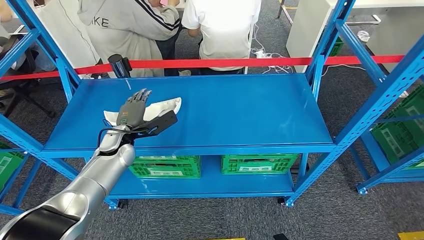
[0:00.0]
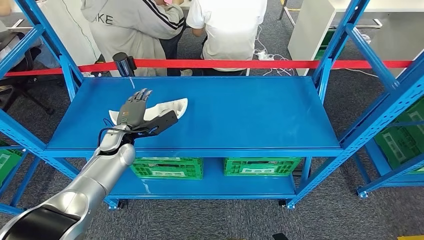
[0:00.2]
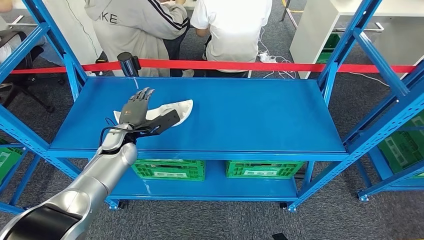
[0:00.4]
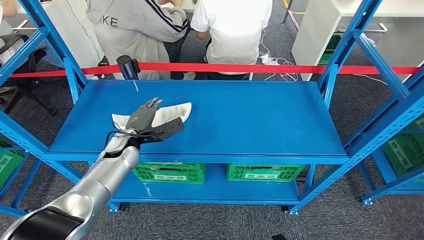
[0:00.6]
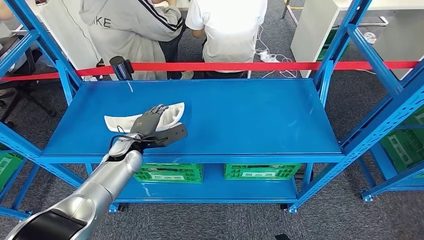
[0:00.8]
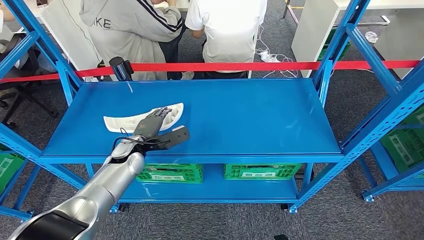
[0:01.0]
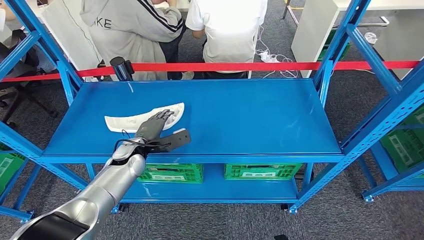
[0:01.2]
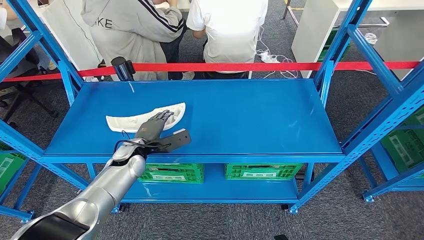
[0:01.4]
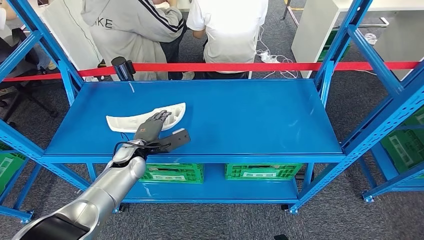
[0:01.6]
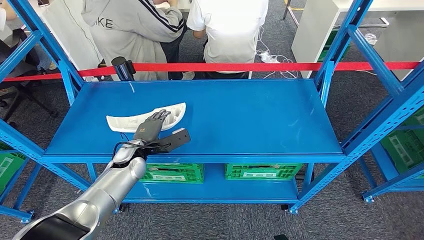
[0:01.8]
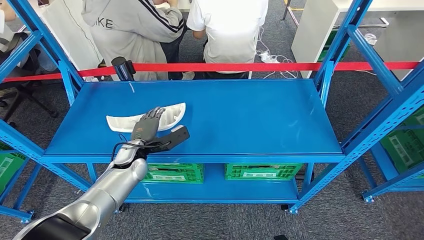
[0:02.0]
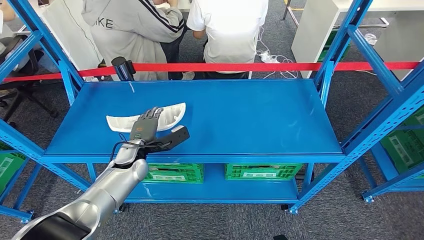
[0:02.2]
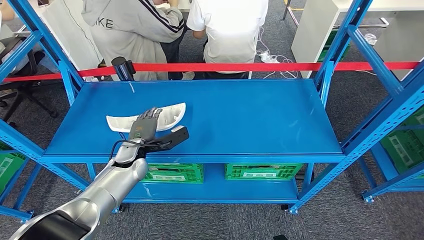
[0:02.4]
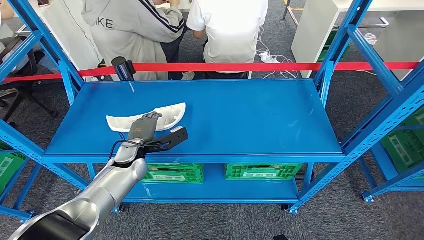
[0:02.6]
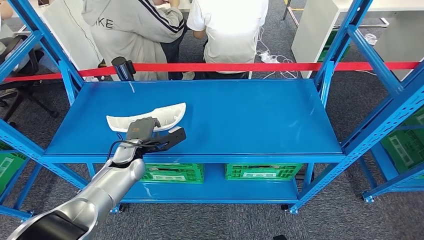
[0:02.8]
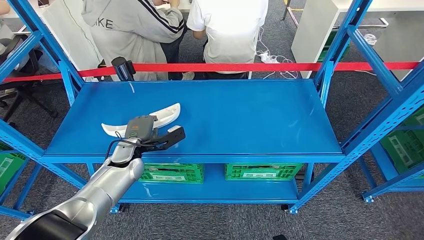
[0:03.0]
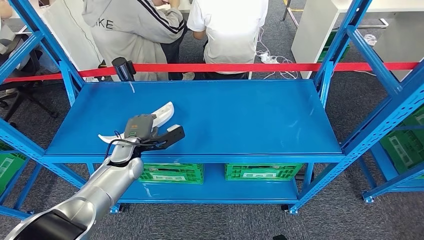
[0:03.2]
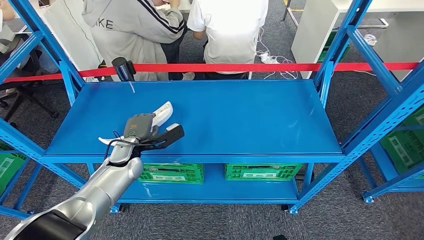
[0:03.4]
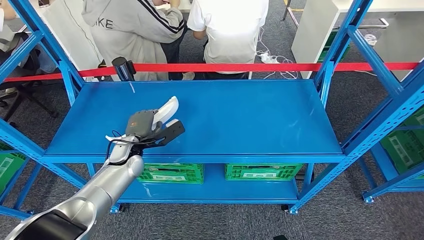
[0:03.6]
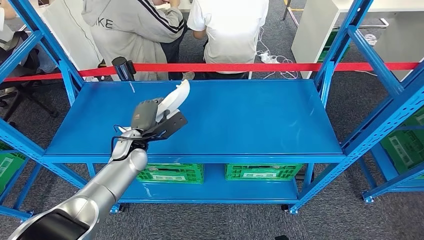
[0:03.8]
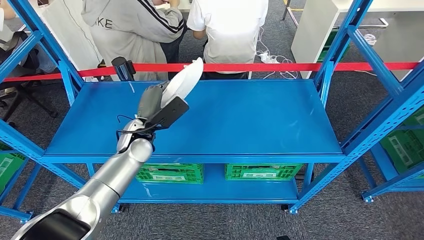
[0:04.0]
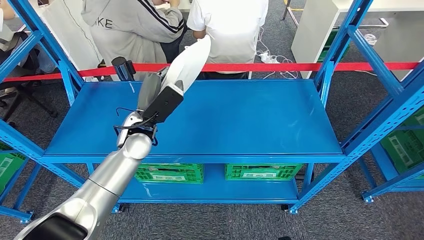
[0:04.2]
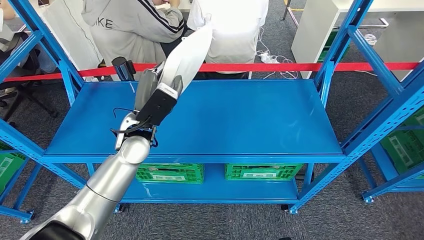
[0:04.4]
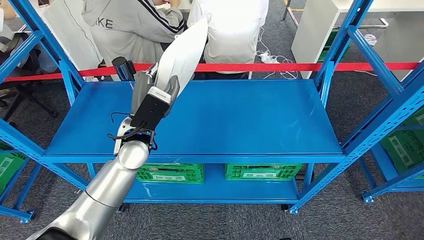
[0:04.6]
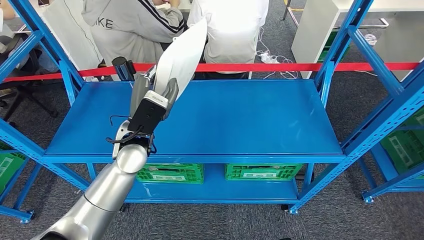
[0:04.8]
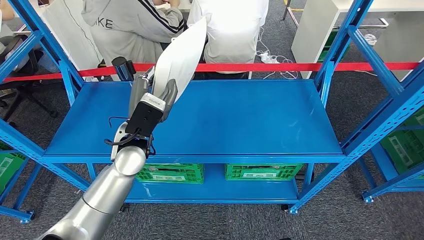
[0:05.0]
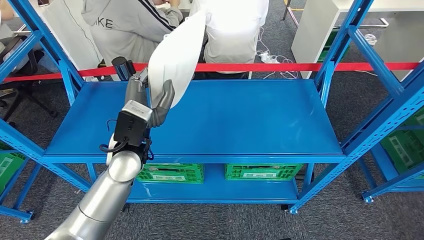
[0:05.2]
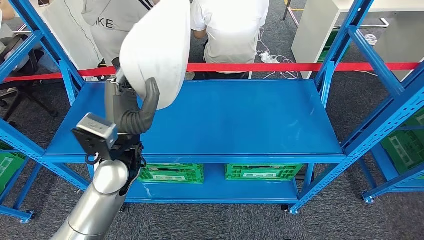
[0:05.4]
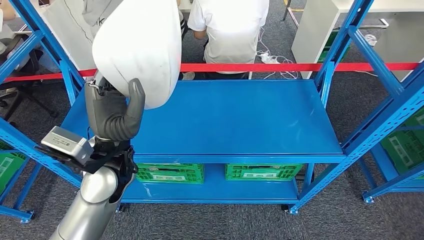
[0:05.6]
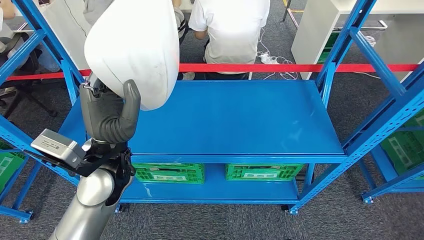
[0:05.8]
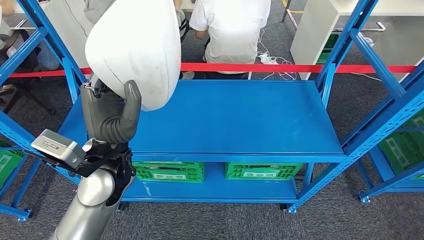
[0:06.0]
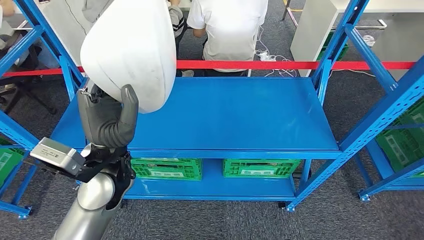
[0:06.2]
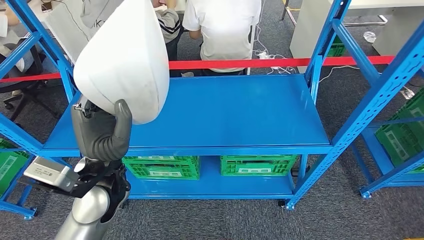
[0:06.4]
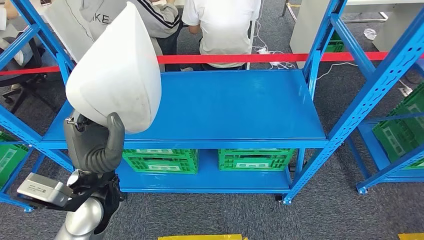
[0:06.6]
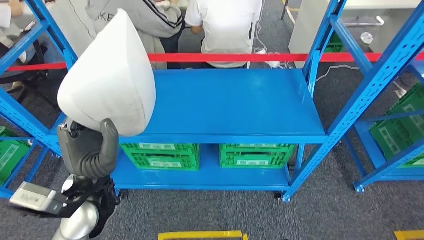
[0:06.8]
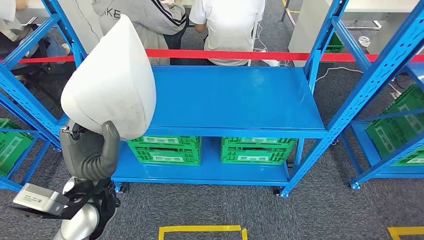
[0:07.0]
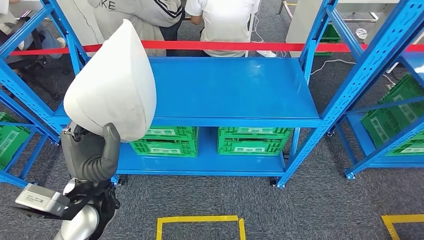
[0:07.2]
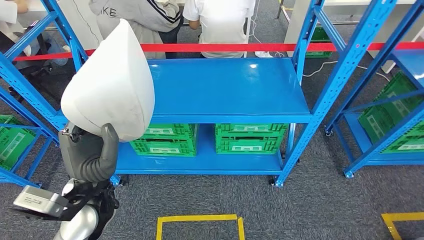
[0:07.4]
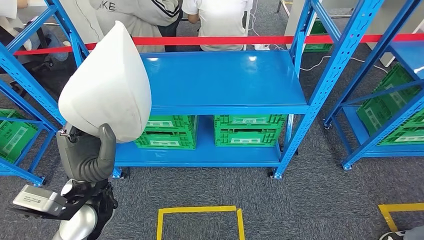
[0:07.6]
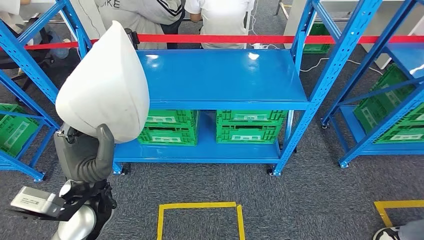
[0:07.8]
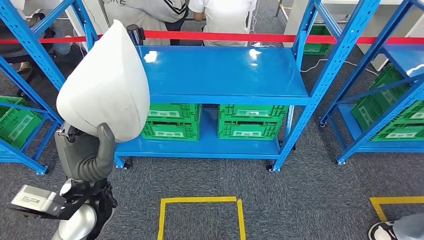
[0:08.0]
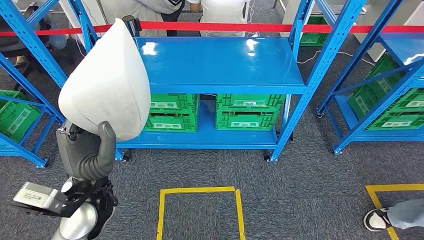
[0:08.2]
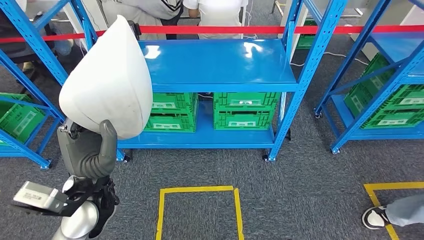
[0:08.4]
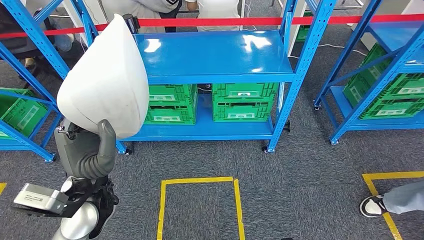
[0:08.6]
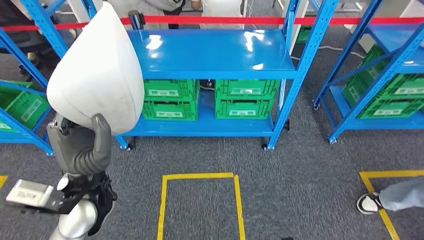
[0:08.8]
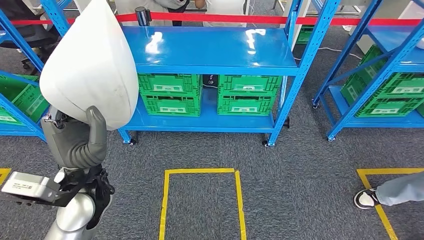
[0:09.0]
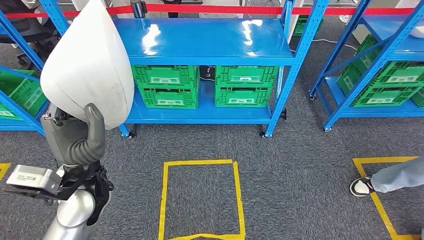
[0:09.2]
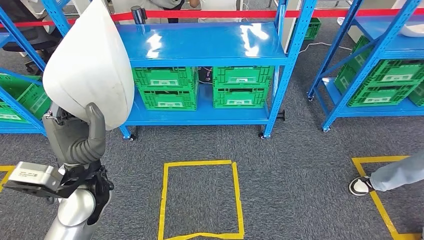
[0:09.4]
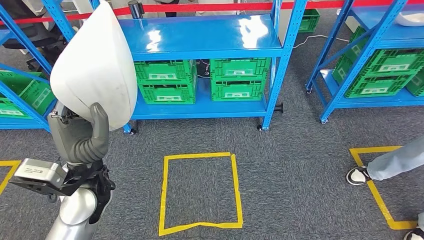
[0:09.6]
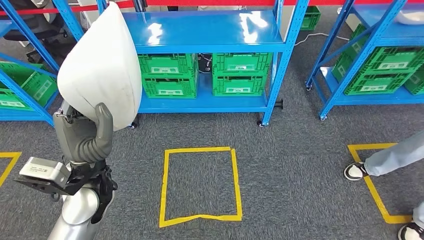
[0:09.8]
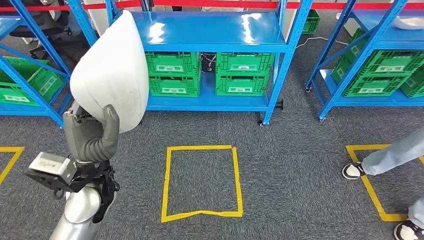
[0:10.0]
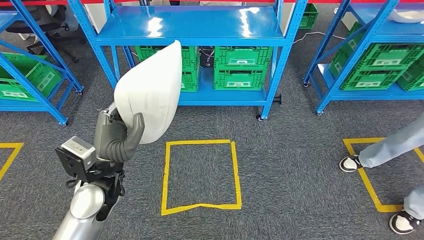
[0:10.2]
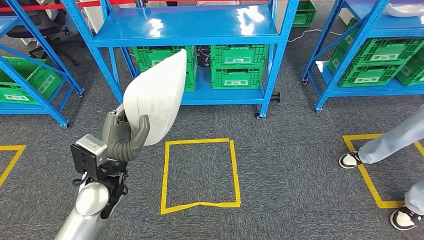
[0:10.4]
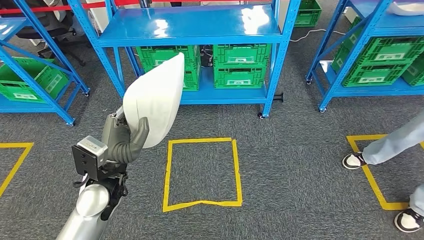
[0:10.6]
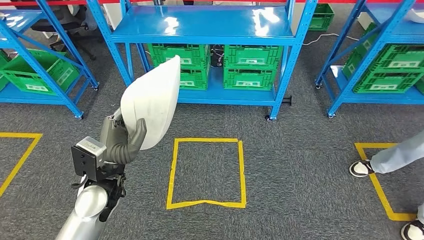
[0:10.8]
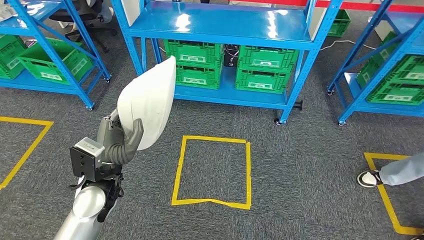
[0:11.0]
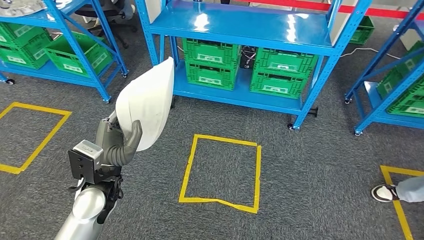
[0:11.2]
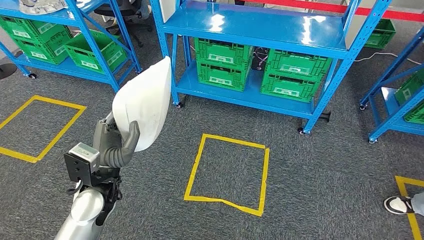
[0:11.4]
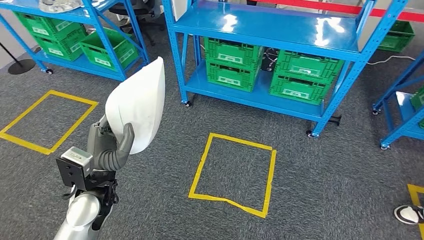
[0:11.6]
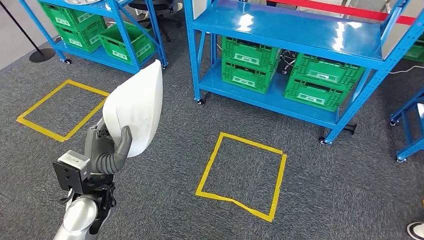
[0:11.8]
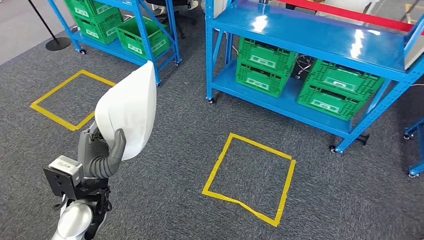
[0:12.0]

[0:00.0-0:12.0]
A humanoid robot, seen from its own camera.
Step, 0:00.0 to 0:06.4: Pick up the large material from the shelf.
0:01.6 to 0:03.0: The hands make only small movements.
0:03.0 to 0:04.4: The left hand is displaced upward and to the right by about 15 cm.

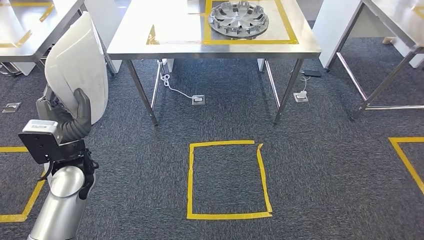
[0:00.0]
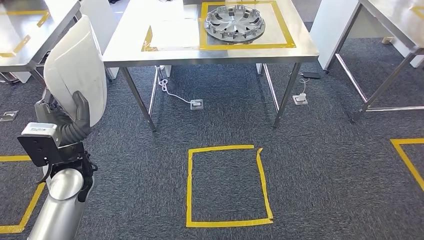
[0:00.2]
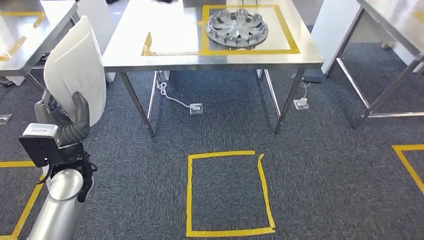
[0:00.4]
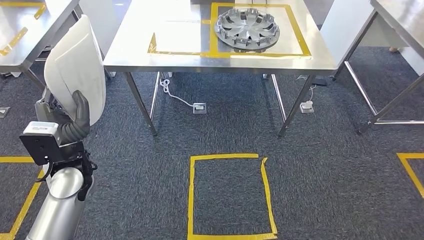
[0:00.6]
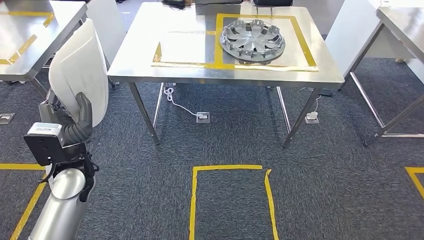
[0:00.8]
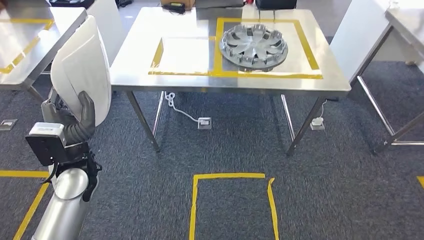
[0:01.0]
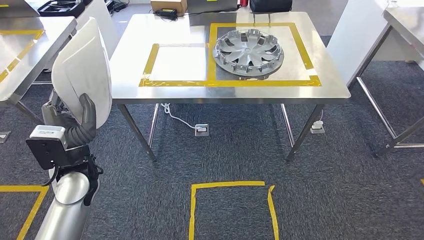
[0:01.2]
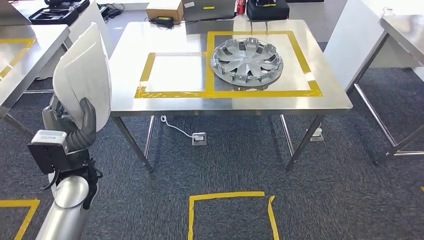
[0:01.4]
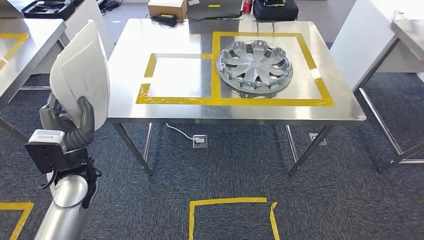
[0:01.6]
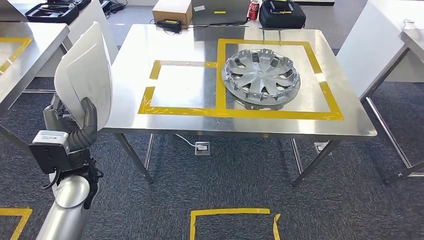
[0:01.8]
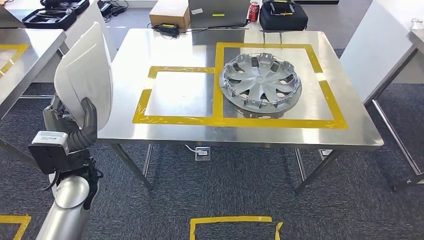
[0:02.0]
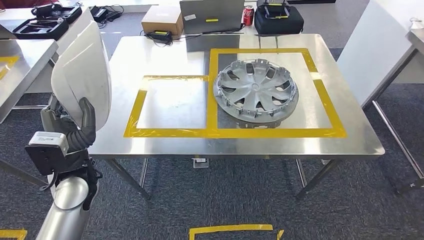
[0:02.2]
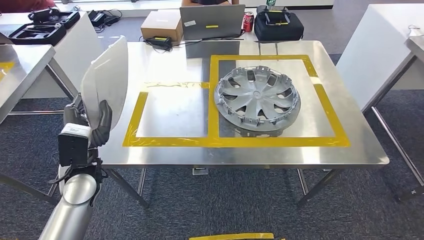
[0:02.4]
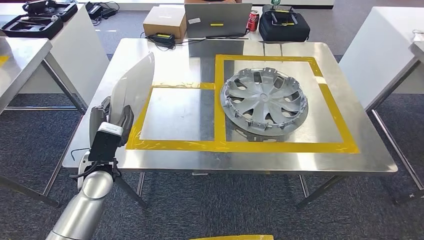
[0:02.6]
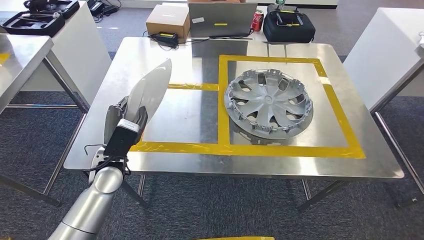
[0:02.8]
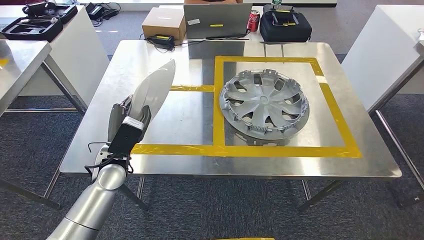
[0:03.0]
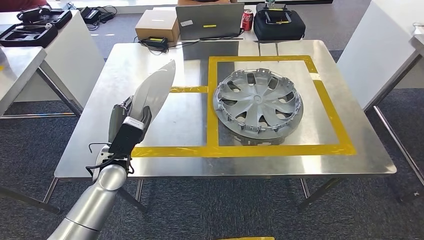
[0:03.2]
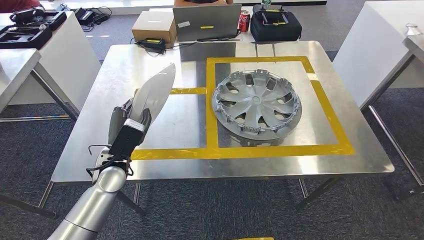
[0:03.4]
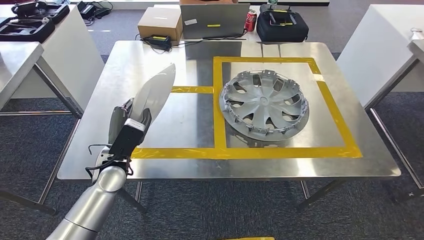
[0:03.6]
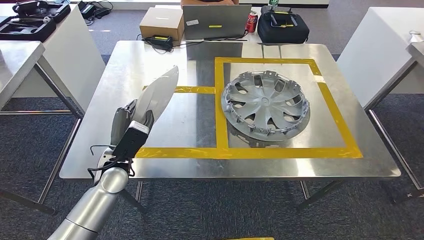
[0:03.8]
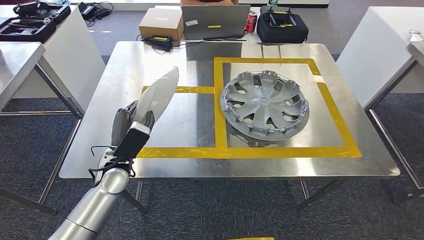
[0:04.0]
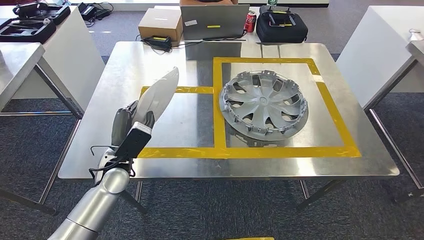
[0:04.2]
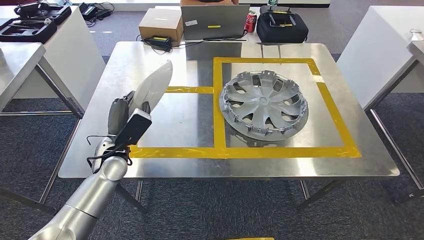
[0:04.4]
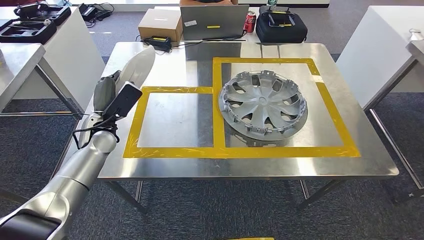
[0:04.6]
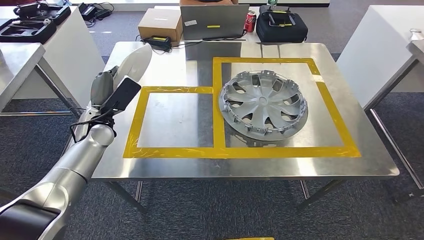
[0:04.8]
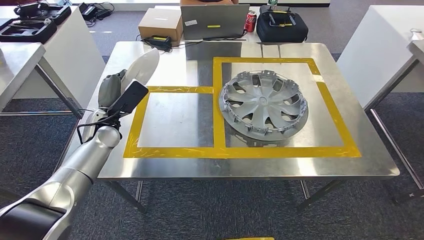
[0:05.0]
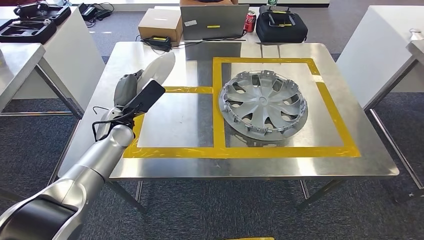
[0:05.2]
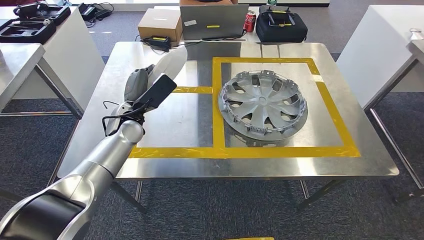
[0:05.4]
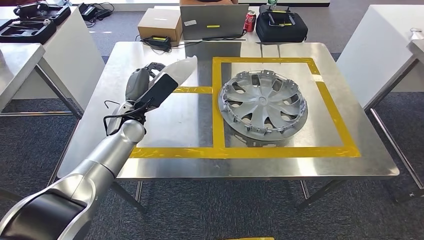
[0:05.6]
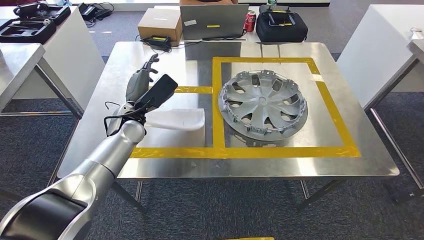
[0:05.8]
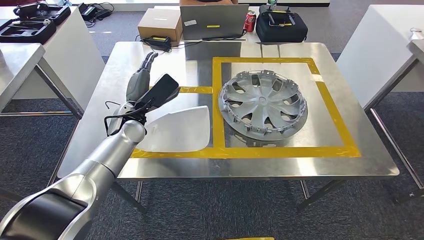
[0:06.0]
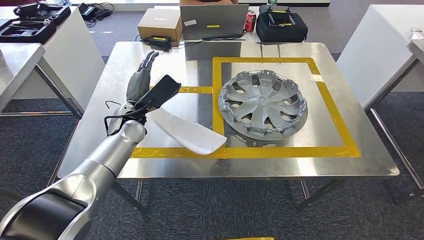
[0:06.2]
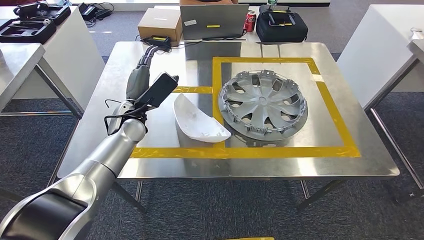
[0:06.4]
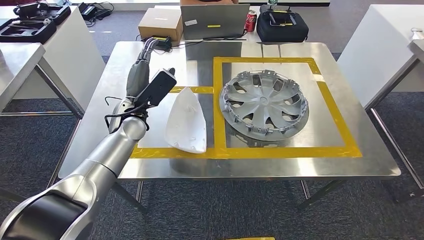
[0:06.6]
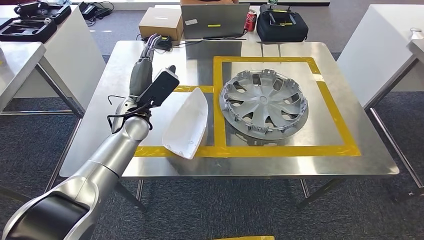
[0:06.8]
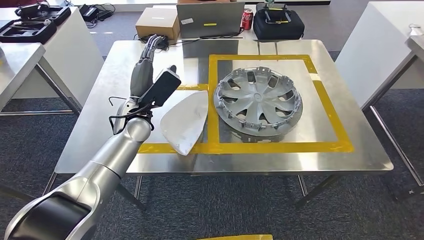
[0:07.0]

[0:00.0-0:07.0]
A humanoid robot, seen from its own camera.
0:04.2 to 0:05.6: The left hand is displaced forward and upward by about 10 cm.
